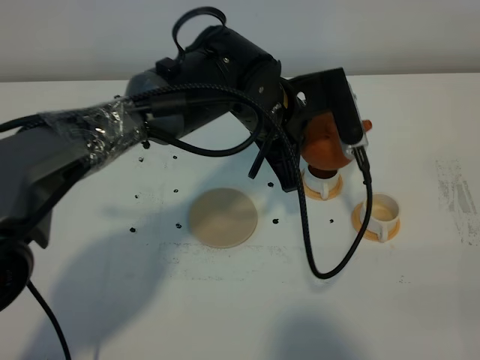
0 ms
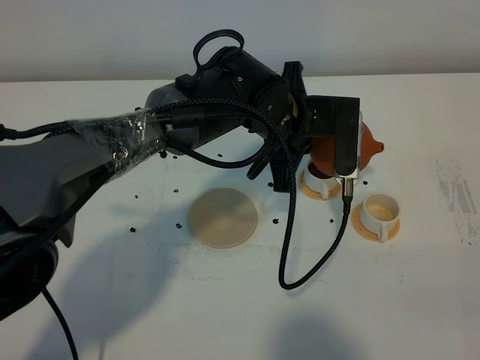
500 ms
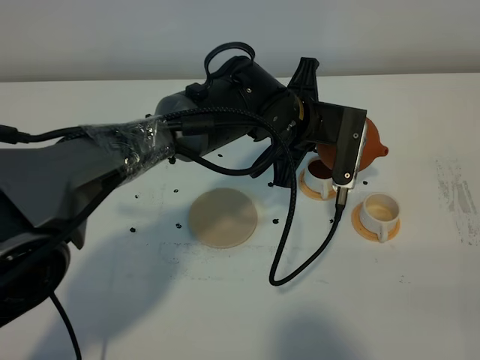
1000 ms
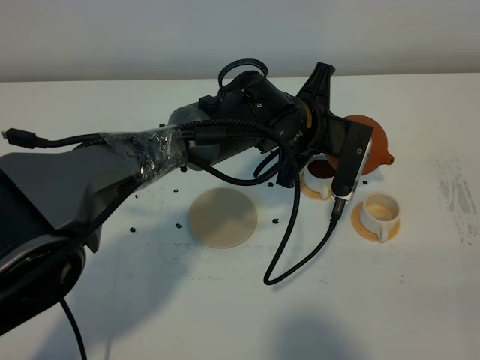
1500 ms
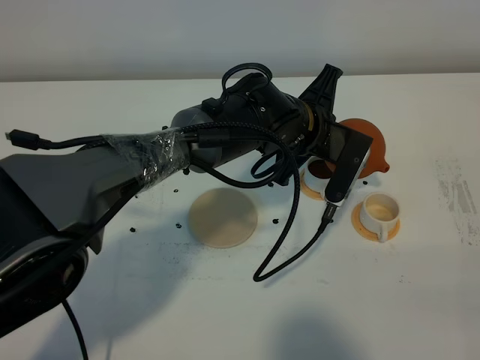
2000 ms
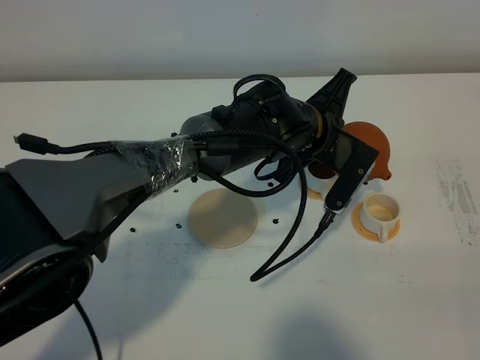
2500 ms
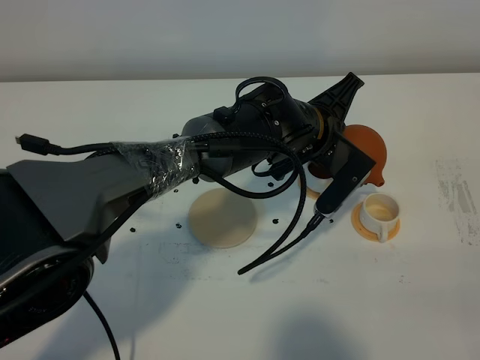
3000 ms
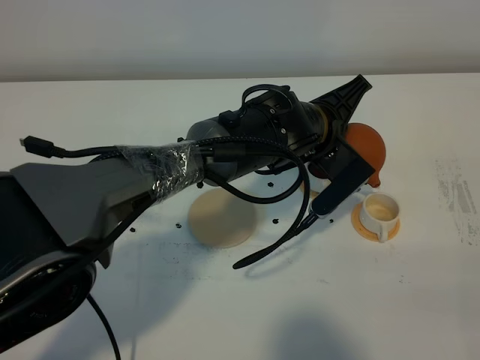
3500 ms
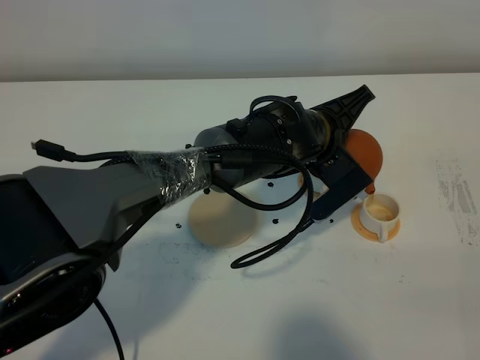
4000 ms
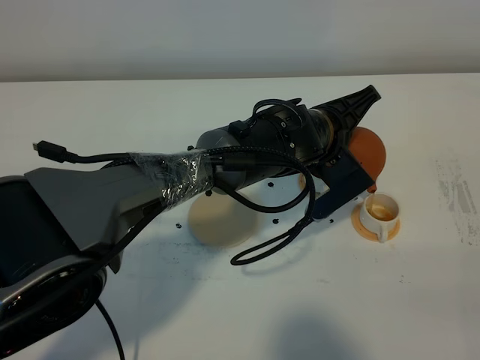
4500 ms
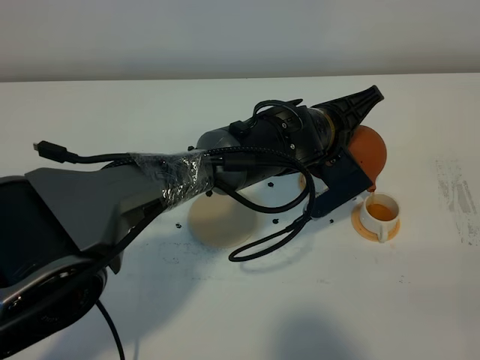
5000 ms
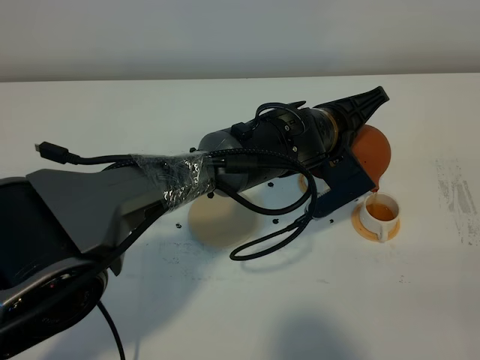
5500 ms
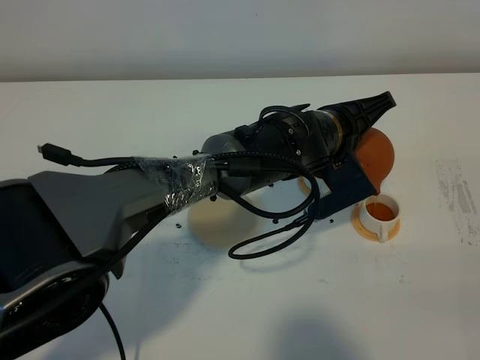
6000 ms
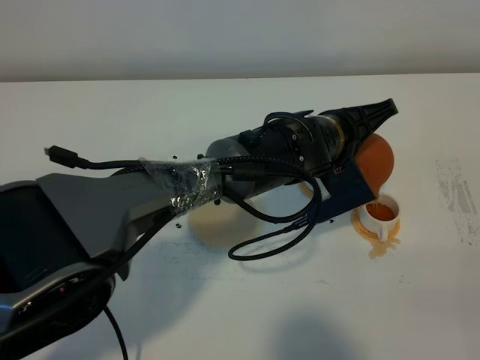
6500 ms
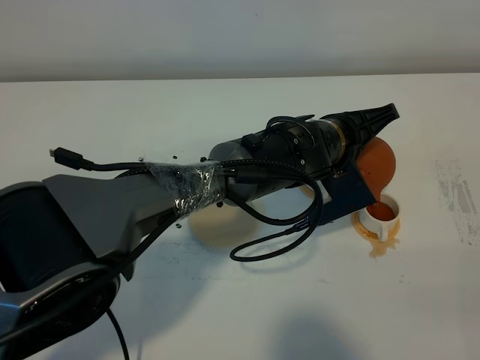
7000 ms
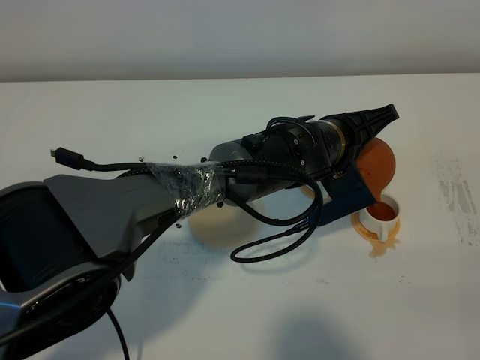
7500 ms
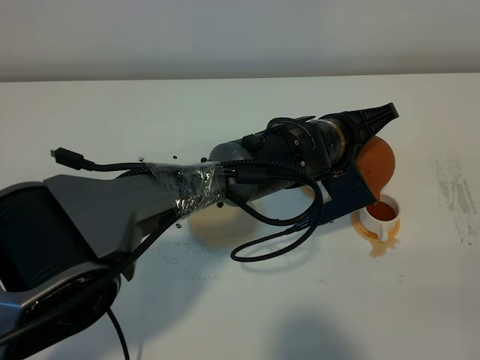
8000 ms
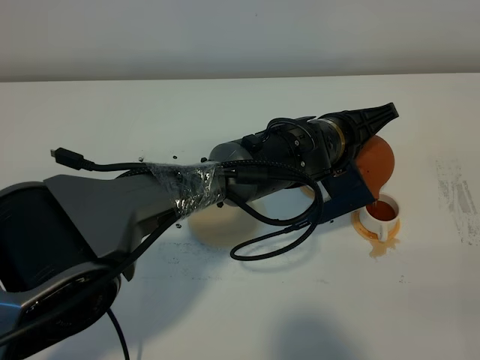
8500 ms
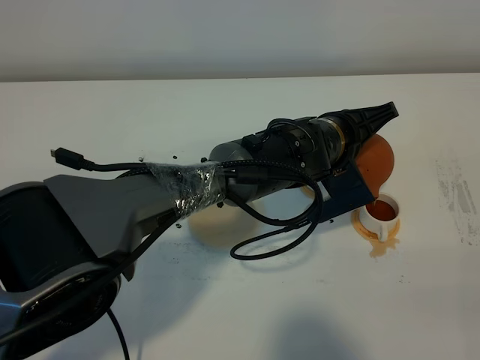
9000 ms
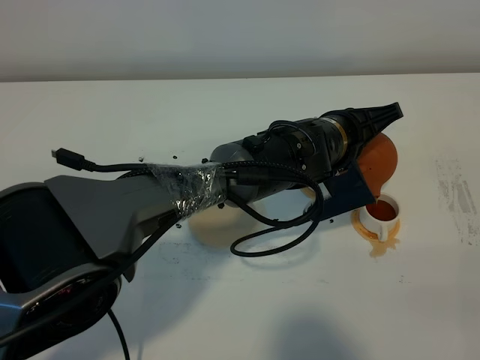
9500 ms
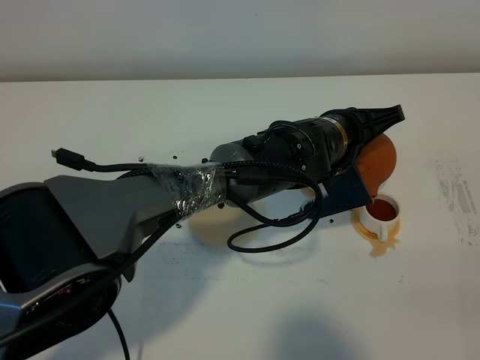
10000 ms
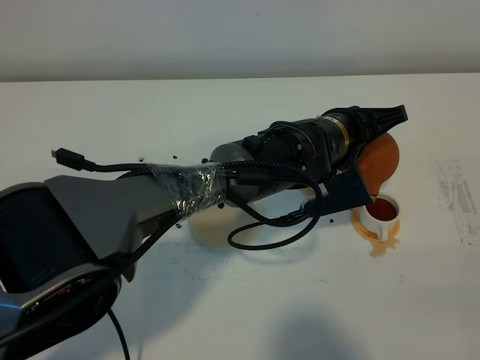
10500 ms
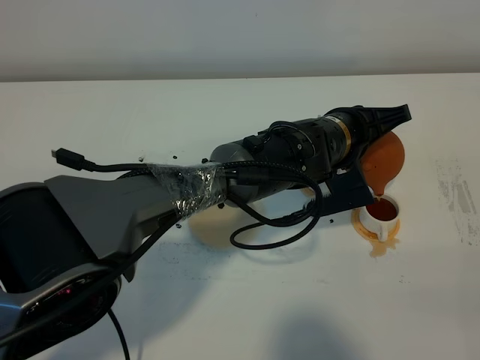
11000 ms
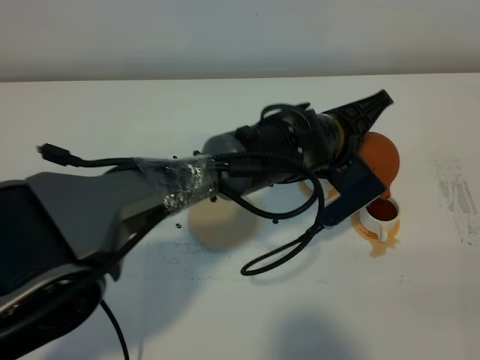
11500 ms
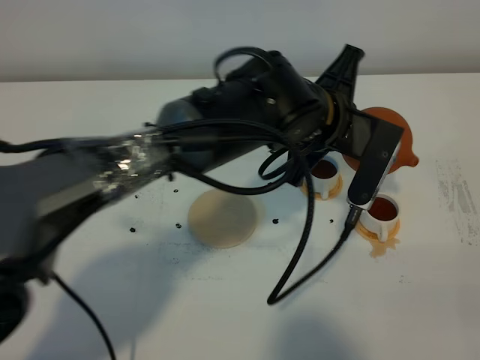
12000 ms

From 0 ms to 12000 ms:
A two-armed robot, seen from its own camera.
Task of the whole recording: grasp the brown teapot and pour the tea into the two white teacups one by one, put the brown teapot back in its original place.
Step, from 0 ms to 11500 ms: Pour tea into the teacup with the left gripper.
From 0 ms to 2000 ms: The left gripper ends up approximately 5 cm from where it was.
From 4000 ms to 8000 ms: The grippers make only small movements.
From 8000 ms to 10000 ms: The grippers move only a little.
From 10000 ms to 12000 ms: The left gripper travels upward by approximately 10 cm.

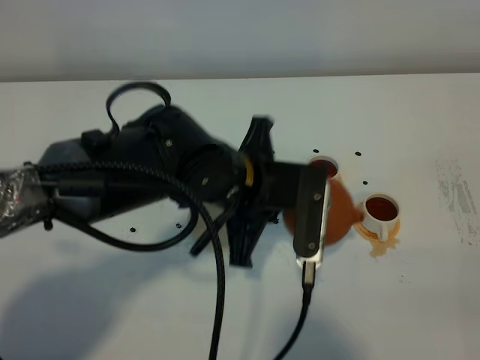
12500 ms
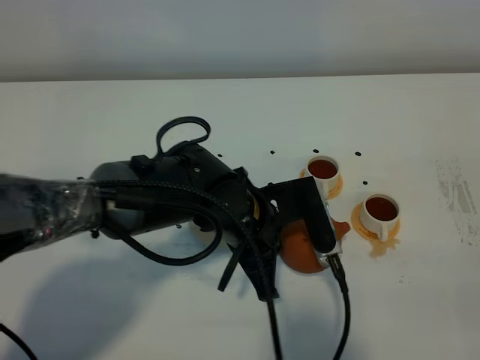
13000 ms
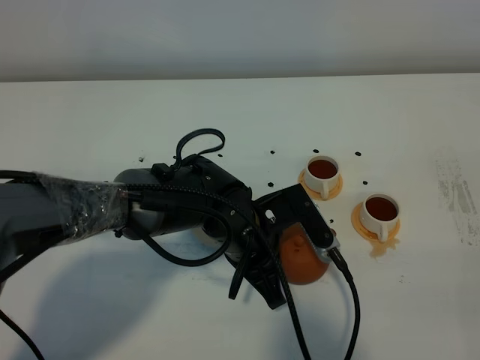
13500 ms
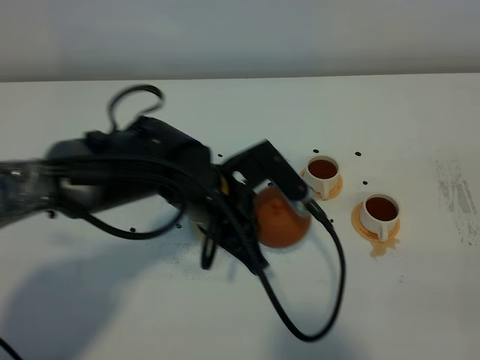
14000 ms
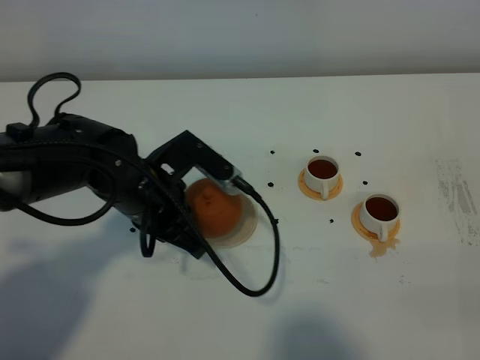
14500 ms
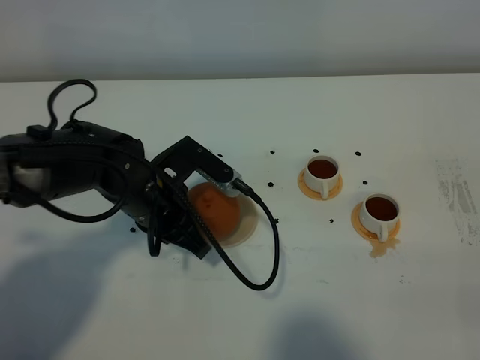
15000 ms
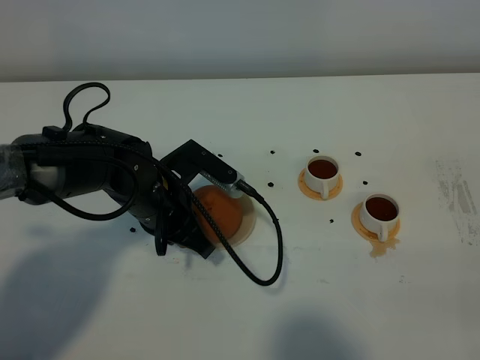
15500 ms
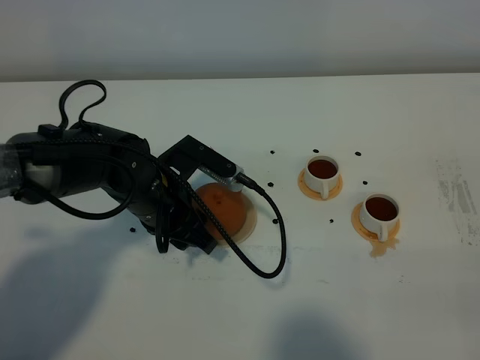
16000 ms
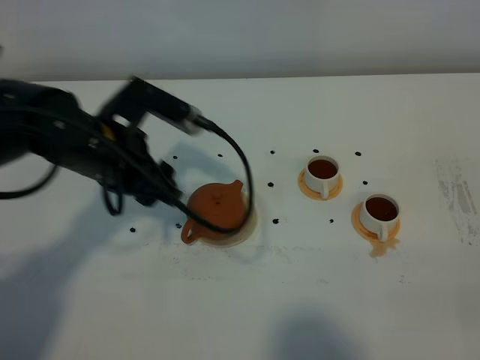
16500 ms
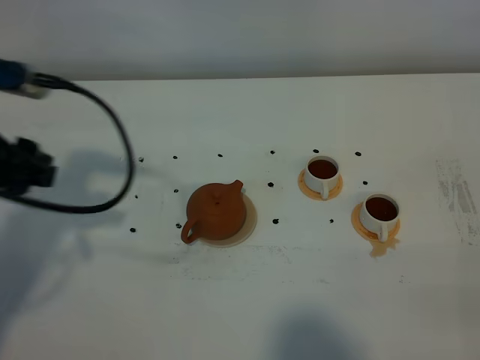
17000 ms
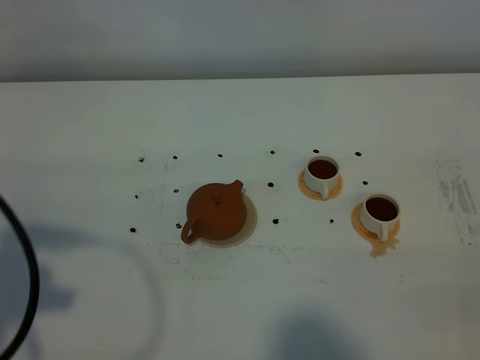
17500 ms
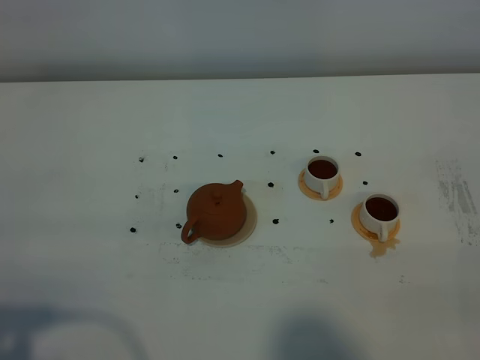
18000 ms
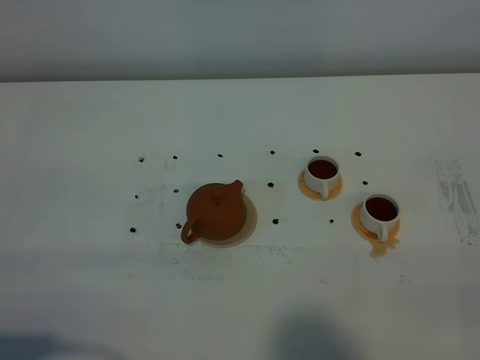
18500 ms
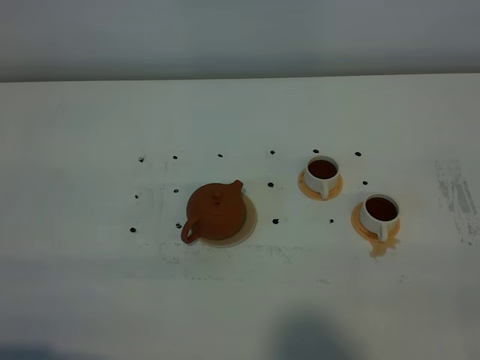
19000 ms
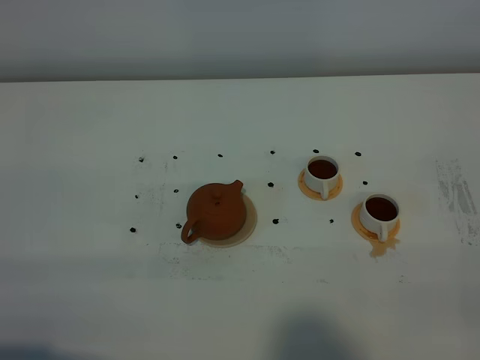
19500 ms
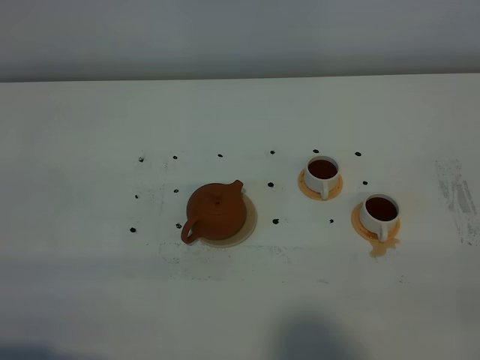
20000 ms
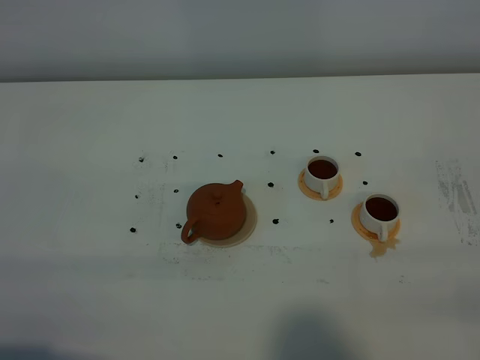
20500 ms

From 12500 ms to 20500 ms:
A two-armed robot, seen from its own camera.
Task of the whole recording: grasp the brown teapot and pour the tea into the two white teacups one by one, put the brown teapot back in its original place.
From 12500 ms to 14500 ms: The left gripper heads to the left, covering roughly 10 cm.
From 14500 ms to 16500 ms: The left gripper heads upward, covering some 5 cm, and opens its fingers.
From 16500 ms to 18500 ms: The left gripper travels backward and to the left by some 35 cm.

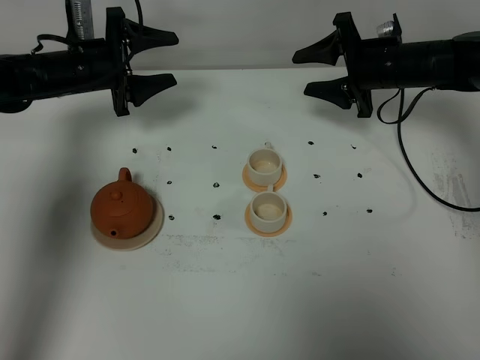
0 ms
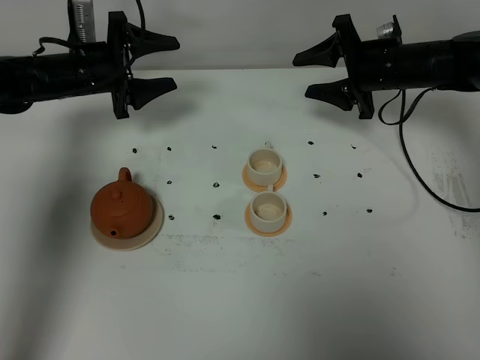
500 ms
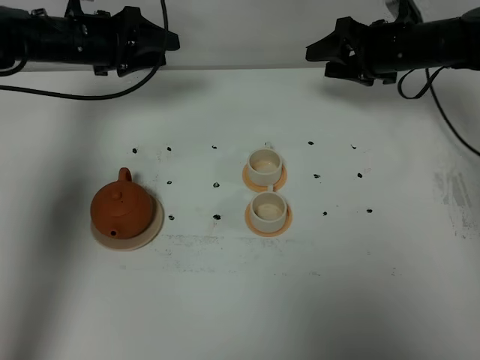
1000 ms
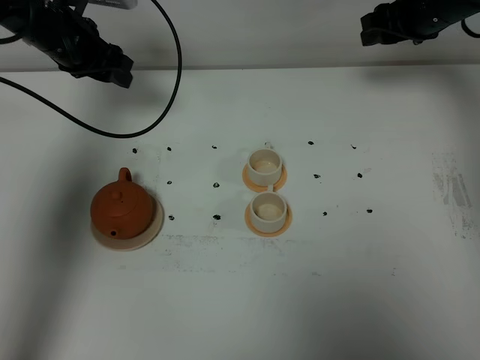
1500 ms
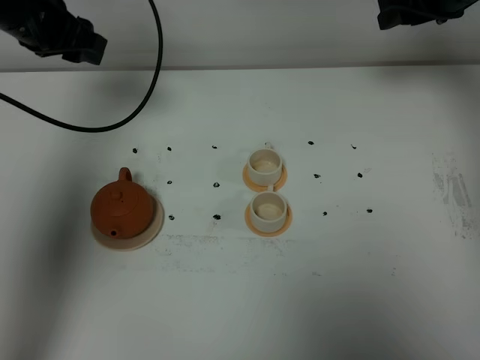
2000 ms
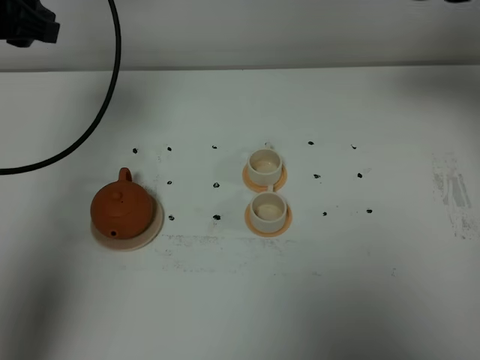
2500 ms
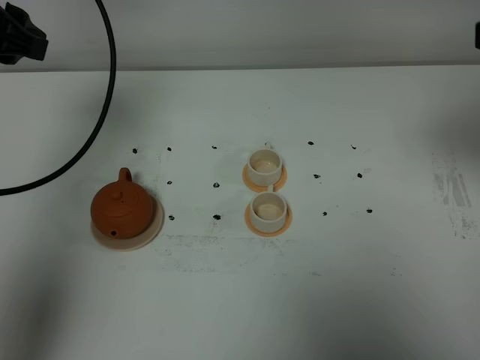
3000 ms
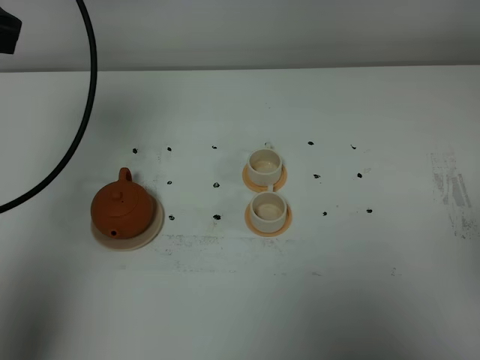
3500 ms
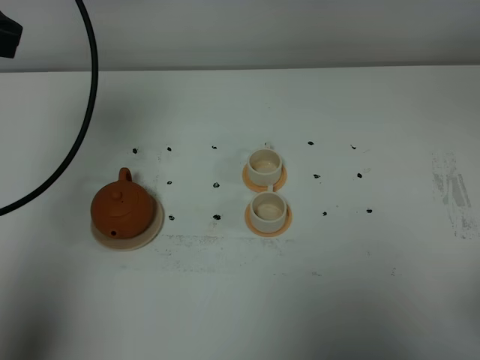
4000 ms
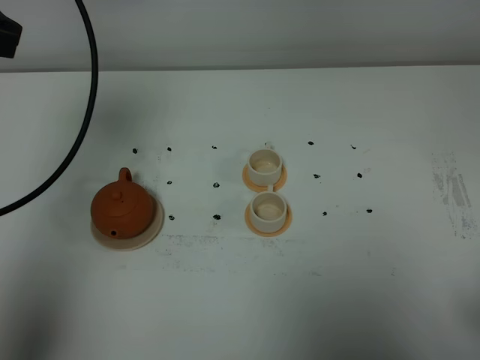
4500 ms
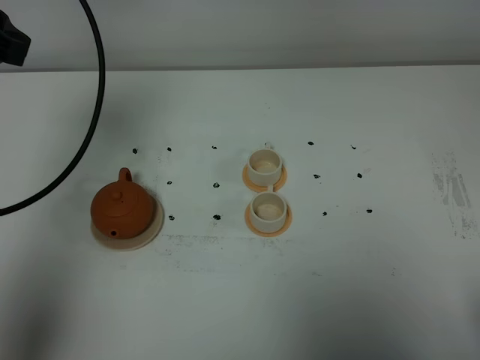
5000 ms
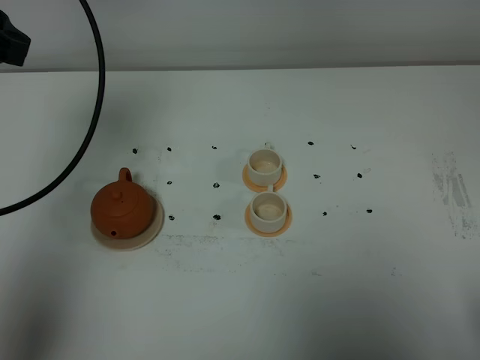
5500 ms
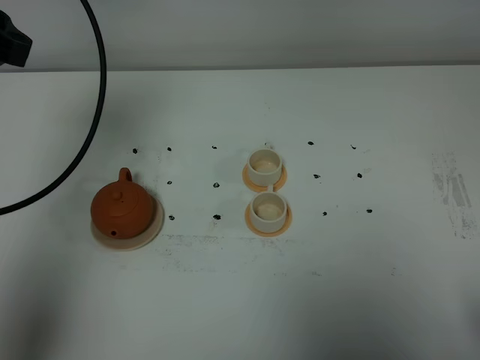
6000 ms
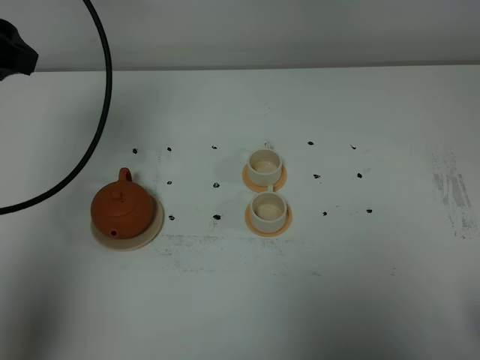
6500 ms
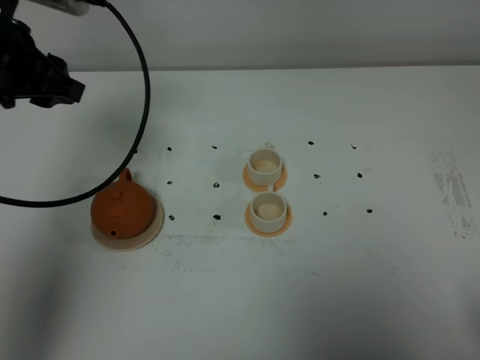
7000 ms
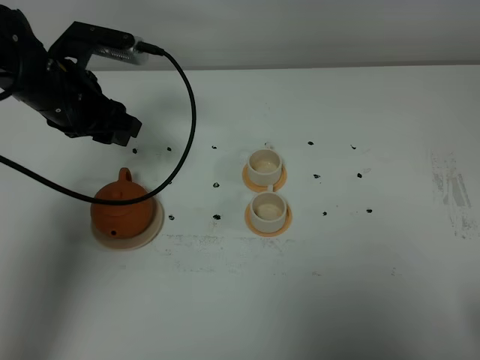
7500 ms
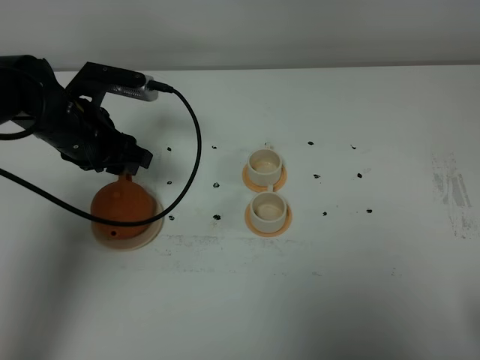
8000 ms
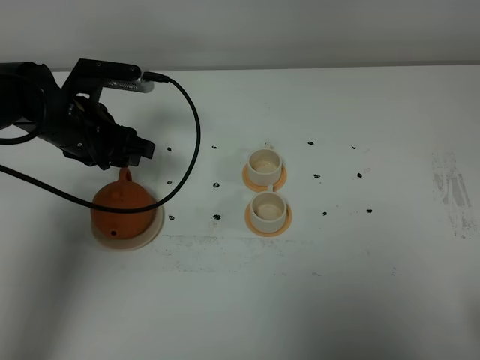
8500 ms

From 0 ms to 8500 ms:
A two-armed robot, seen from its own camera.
Task of the whole recording: grasp the brown teapot and pour the tea into the two white teacups one by one, put the brown teapot back in its original place.
From 0 ms to 2000 ms: The grippers both shift upward by about 15 cm.
From 2000 ms to 4000 ms: The left gripper is displaced backward and upward by about 20 cm; the right gripper moves backward, some 50 cm, and closes up.
From 6500 ms to 8500 ms: The left gripper moves downward, some 20 cm.
